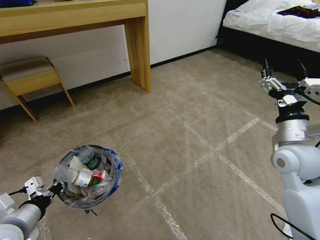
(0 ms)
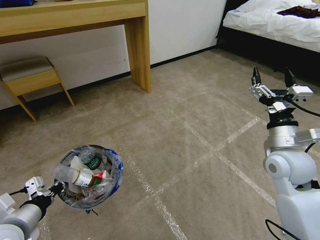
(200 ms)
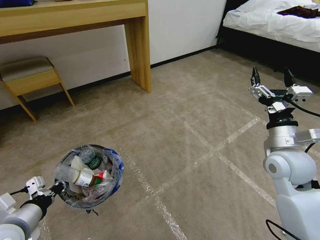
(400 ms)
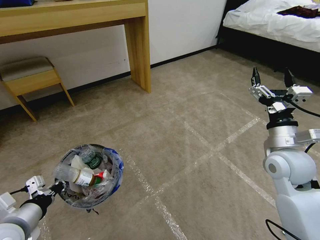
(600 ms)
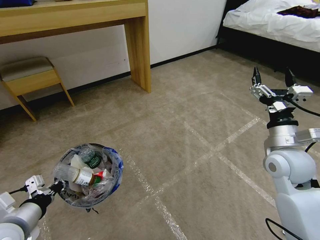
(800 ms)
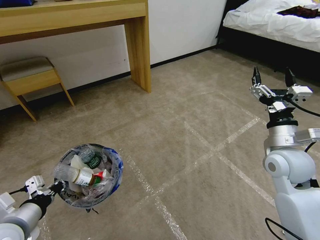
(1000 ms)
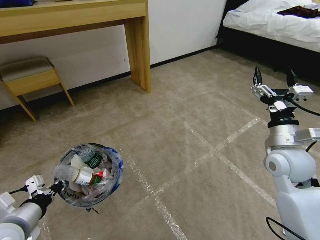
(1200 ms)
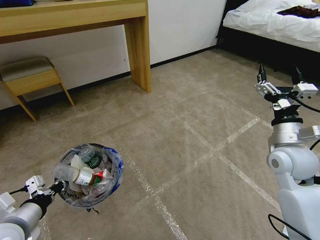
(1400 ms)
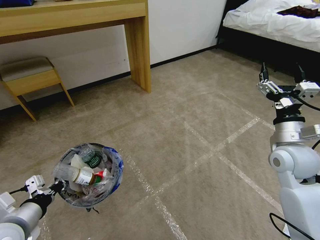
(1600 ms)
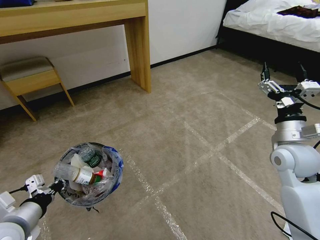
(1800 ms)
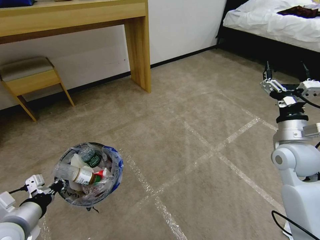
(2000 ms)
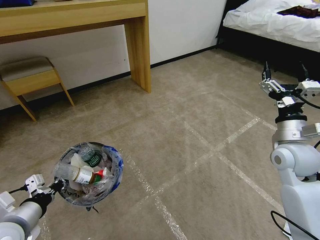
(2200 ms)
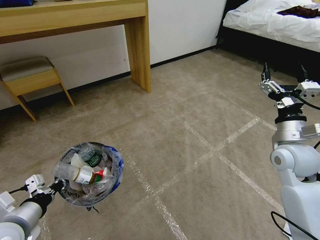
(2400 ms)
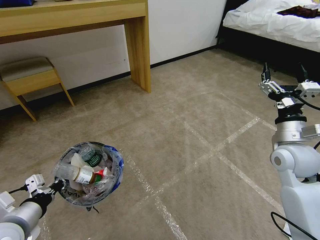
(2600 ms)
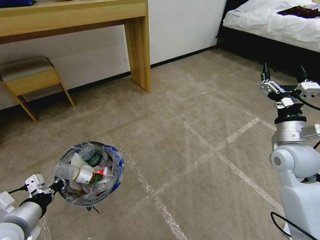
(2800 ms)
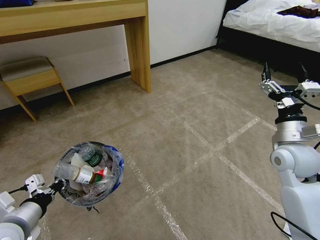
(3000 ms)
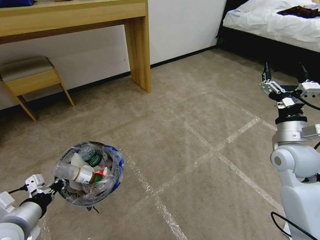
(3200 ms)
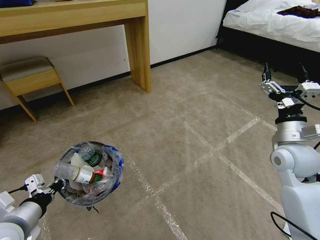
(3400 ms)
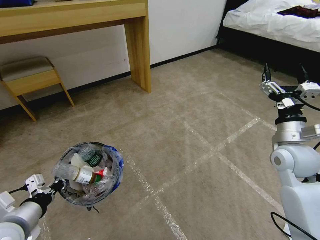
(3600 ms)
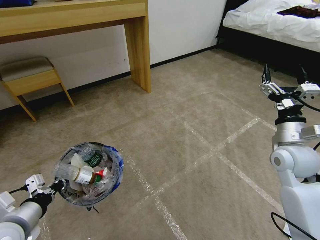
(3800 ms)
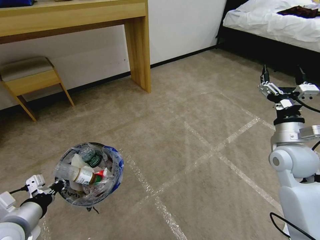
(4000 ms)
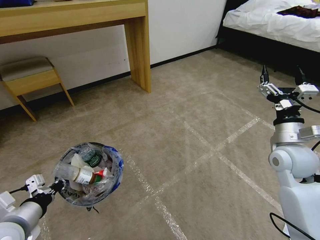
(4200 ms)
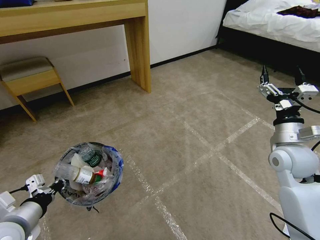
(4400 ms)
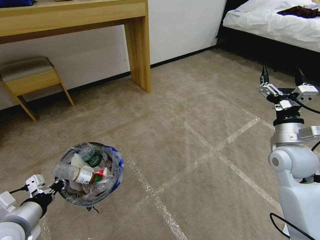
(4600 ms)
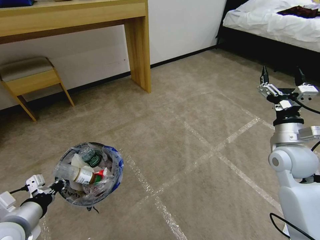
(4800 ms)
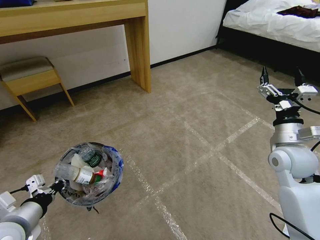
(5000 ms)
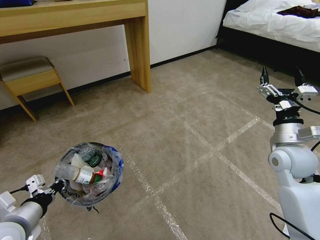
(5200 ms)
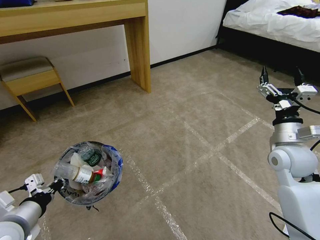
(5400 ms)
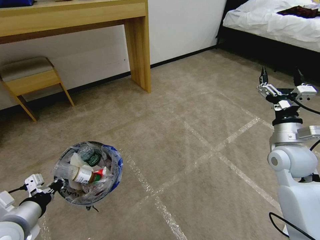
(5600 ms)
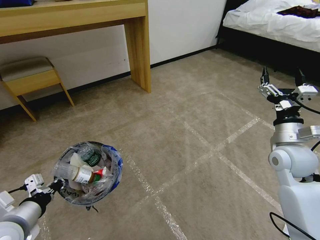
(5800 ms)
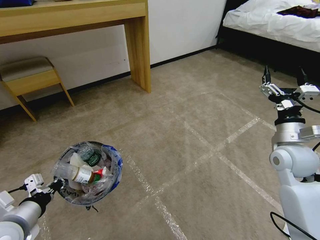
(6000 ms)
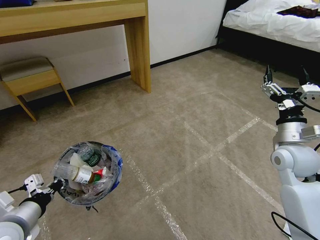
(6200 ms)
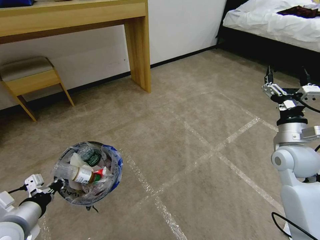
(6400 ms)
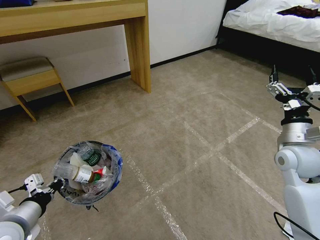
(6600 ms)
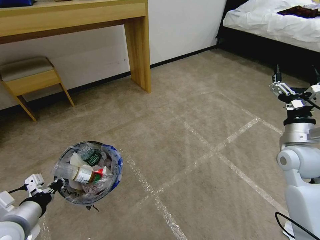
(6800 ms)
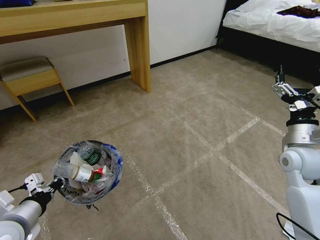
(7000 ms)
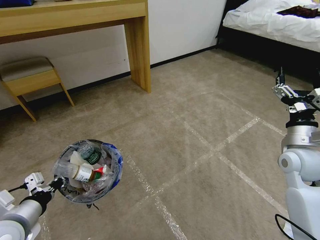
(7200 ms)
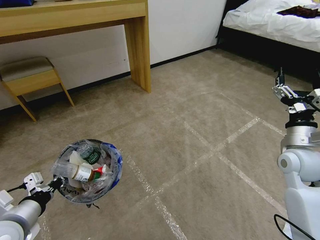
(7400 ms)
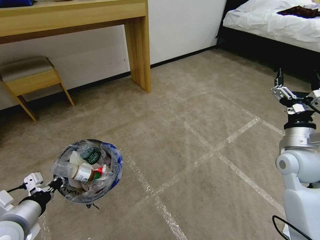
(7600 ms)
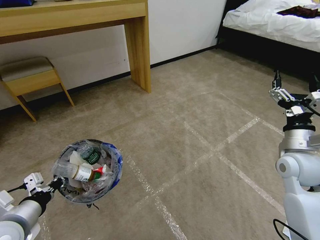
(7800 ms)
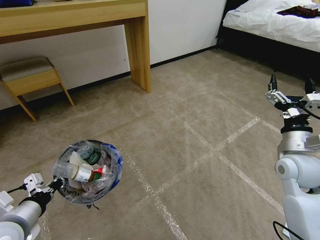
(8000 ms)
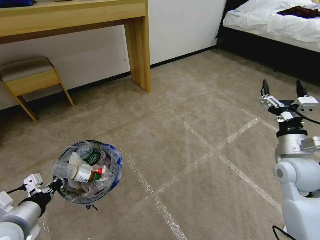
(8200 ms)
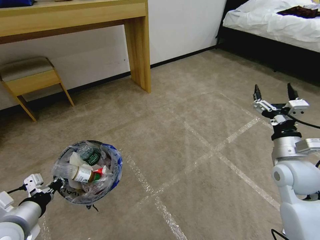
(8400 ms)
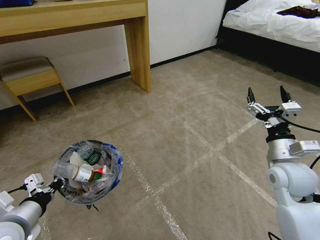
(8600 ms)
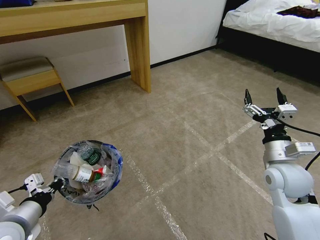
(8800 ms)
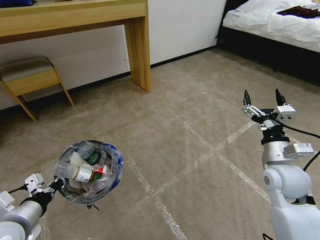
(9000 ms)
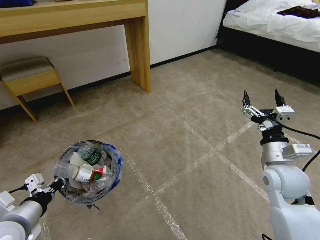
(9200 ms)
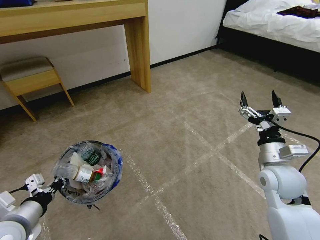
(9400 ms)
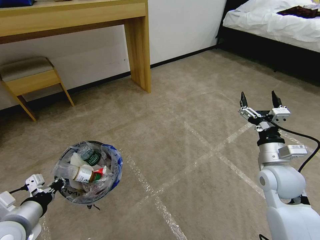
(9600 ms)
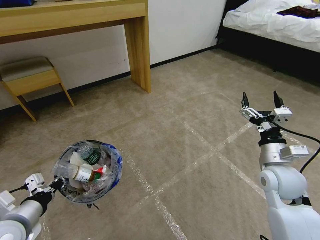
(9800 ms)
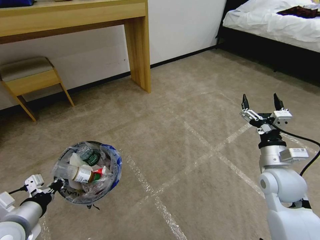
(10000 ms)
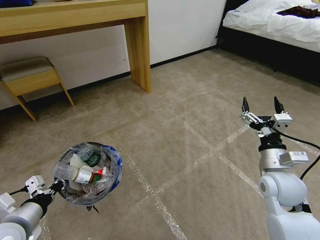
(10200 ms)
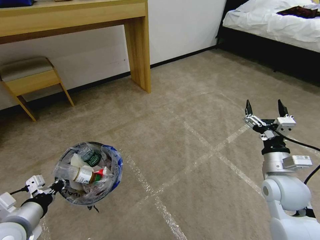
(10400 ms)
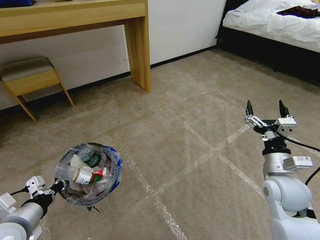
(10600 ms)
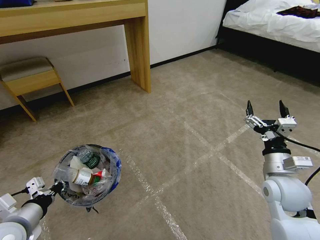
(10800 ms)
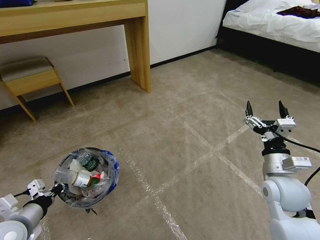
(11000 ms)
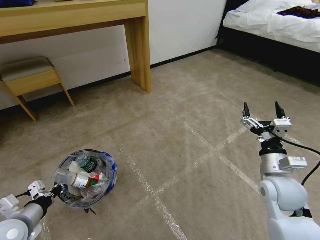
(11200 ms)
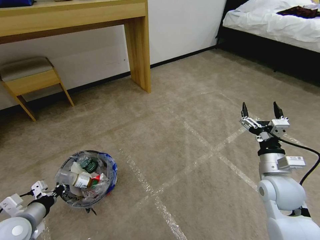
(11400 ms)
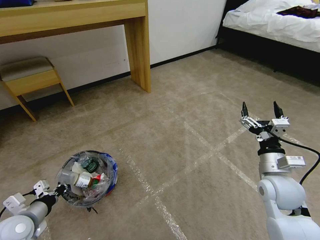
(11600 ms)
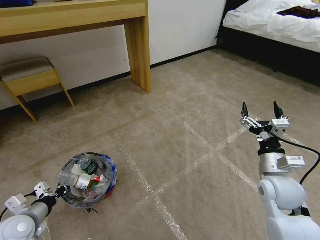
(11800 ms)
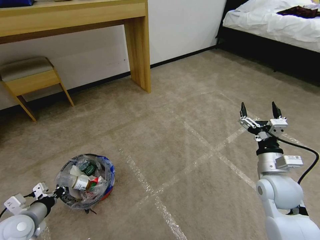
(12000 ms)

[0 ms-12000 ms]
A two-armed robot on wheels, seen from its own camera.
Task of the whole recording: Pick up the trash bin and place the garbage on the floor into it.
0 ms to 1600 ms: The grippers make only small movements.
1600 ms to 3000 ms: Both grippers stay about where they are.
3000 ms to 4400 ms: Neither gripper changes place.
4400 ms to 6000 ms: The two grippers keep their place.
6000 ms to 7600 ms: The grippers make only small movements.
7600 ms to 9000 ms: The right gripper moves approximately 5 cm.
9000 ms to 10400 ms: The grippers make only small movements.
10400 ms to 12000 ms: The left gripper travels downward and to the left by some 10 cm.

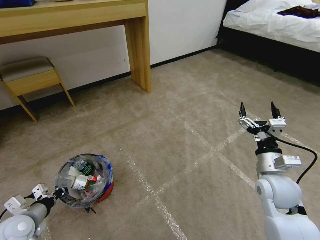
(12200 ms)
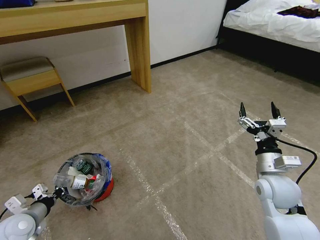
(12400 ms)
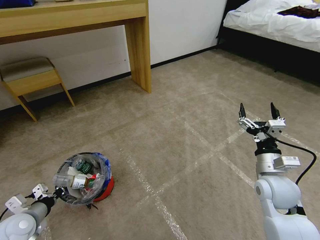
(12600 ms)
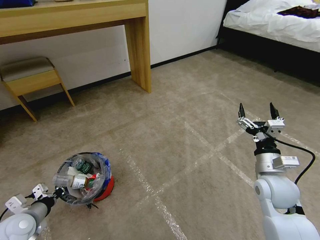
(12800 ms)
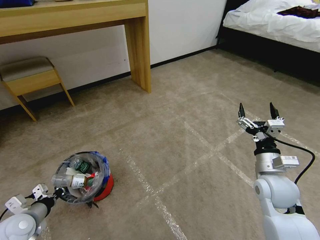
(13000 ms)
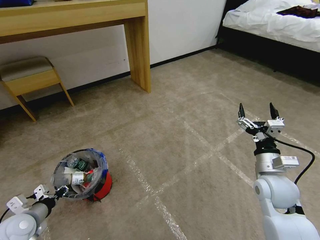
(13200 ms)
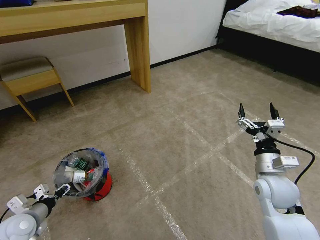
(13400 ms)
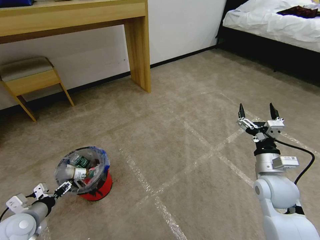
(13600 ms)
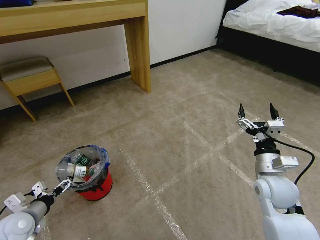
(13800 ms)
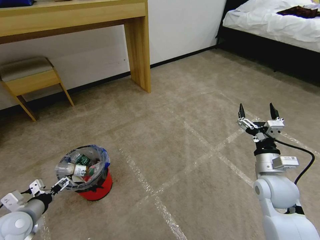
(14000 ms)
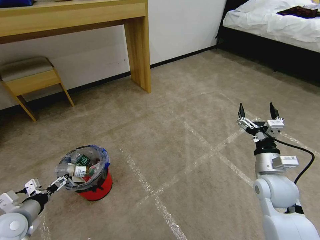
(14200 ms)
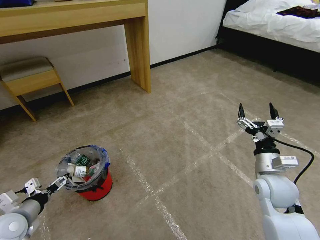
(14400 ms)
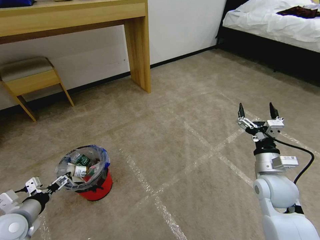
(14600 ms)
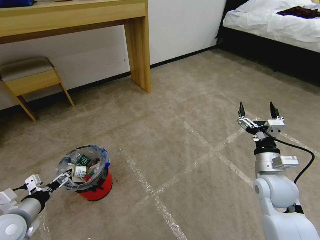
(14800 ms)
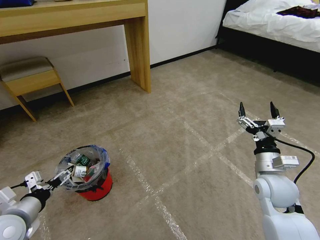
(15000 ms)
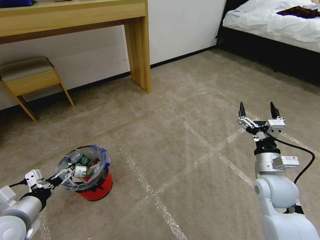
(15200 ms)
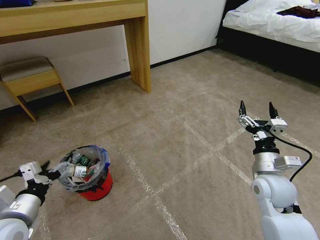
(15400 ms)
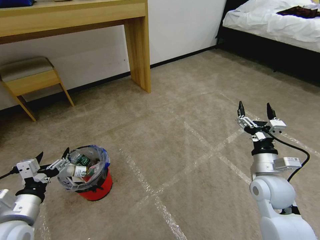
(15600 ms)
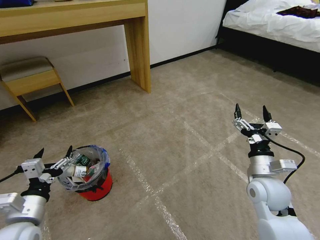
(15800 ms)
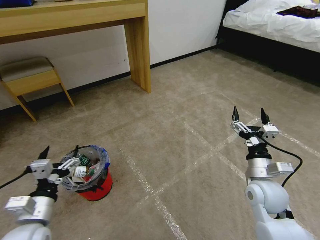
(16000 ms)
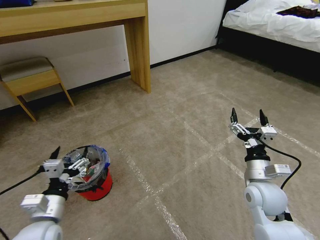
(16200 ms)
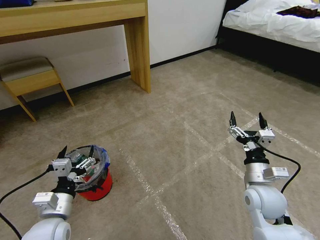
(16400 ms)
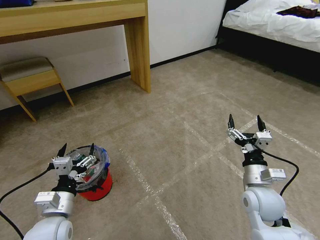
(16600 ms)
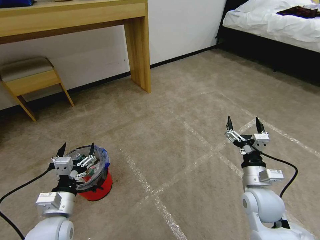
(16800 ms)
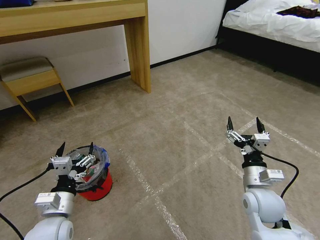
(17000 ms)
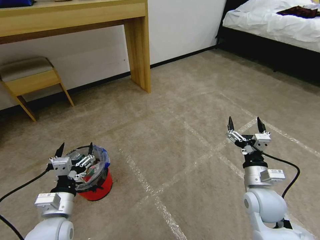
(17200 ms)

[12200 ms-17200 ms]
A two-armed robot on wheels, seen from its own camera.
Task of the whole recording: Pick up the trash bin and place the garbage on the floor into it.
12200 ms to 13800 ms: The left gripper opens up.
13800 ms to 15600 ms: The left gripper shifts roughly 10 cm upward and to the right.
15600 ms to 17200 ms: The left gripper goes approximately 5 cm to the right.
